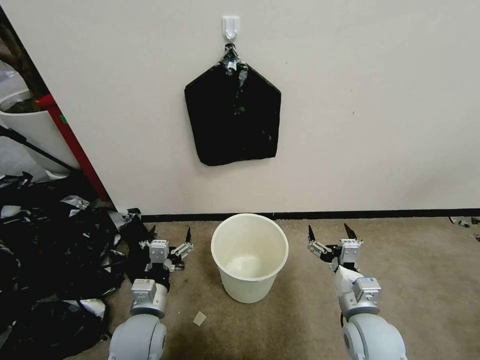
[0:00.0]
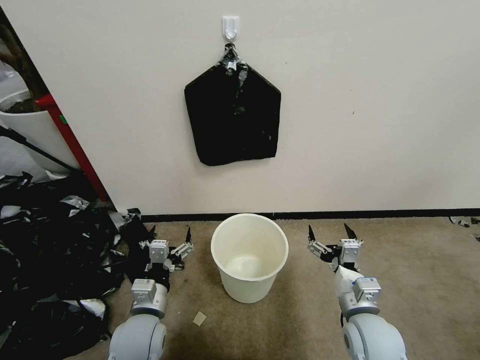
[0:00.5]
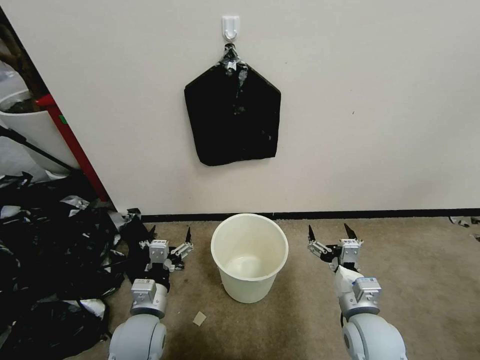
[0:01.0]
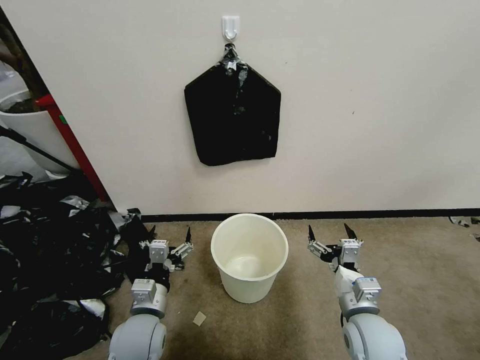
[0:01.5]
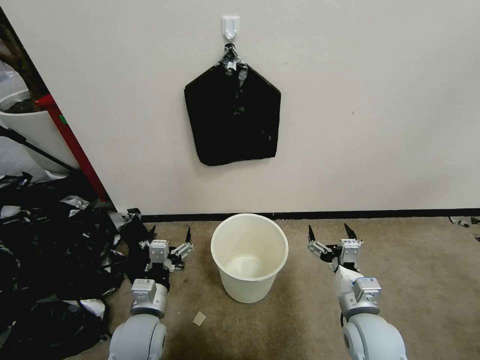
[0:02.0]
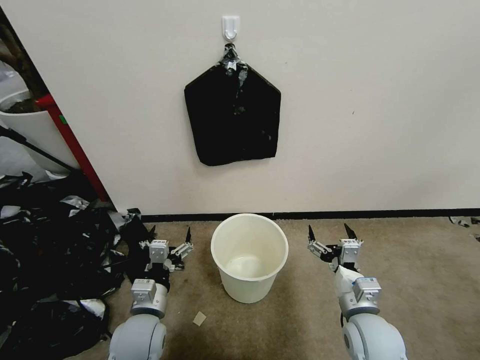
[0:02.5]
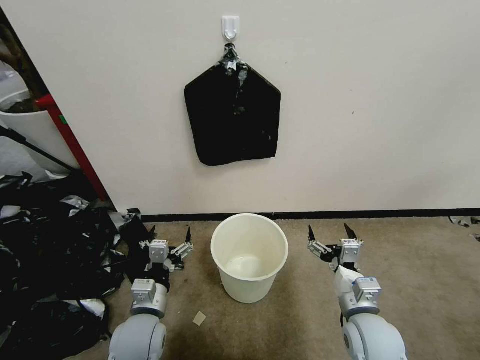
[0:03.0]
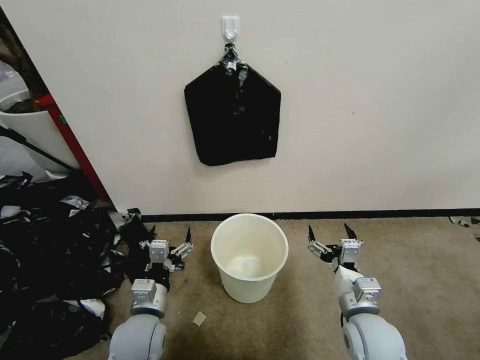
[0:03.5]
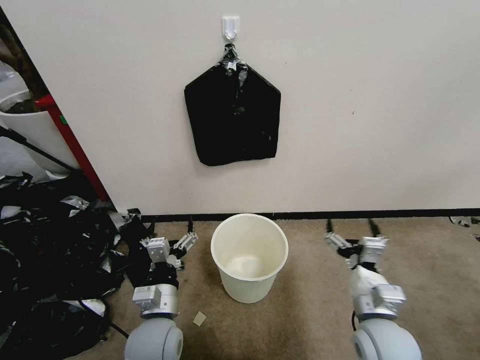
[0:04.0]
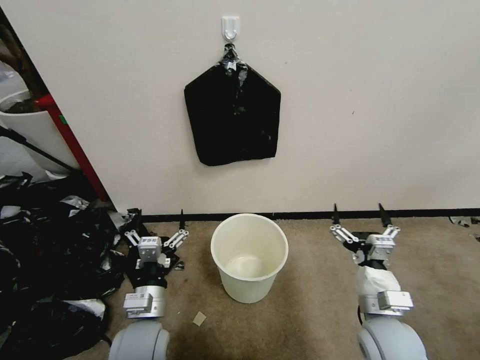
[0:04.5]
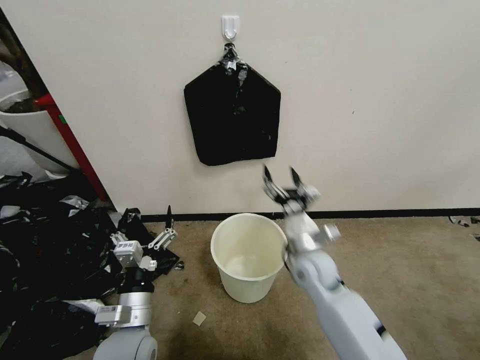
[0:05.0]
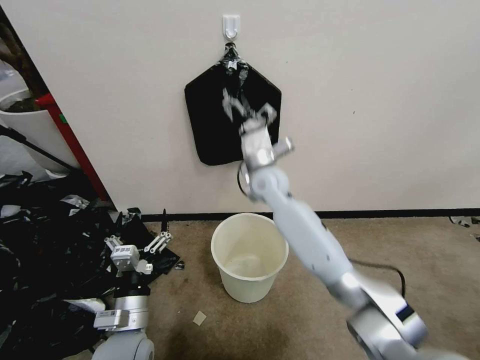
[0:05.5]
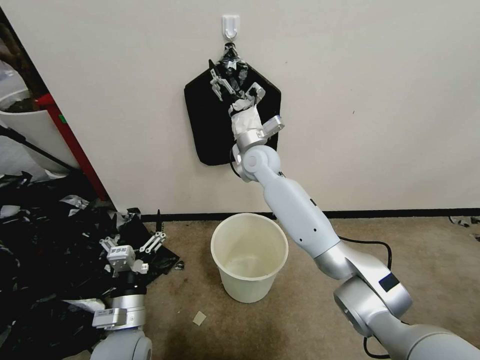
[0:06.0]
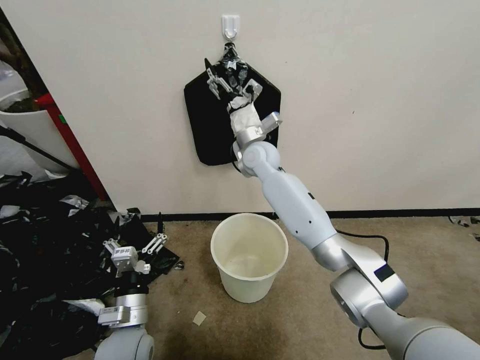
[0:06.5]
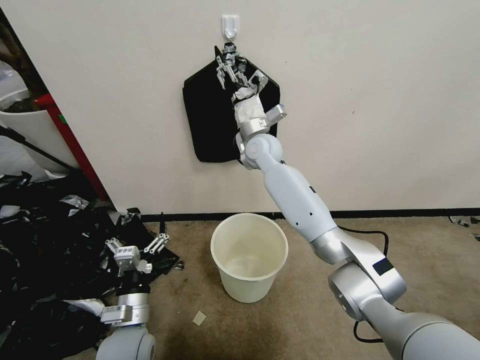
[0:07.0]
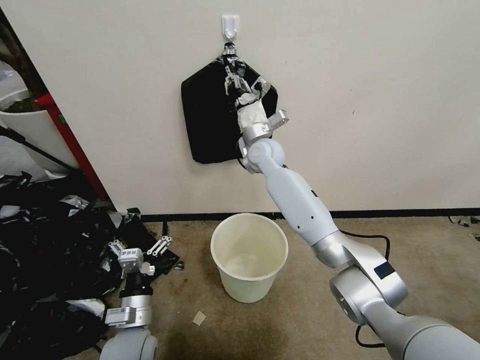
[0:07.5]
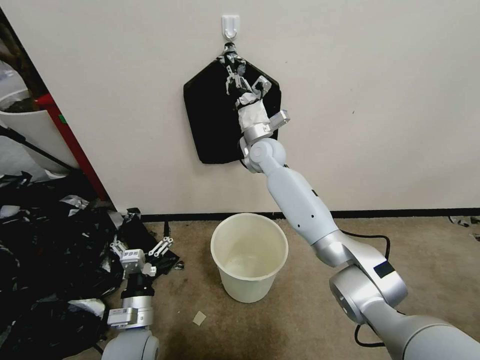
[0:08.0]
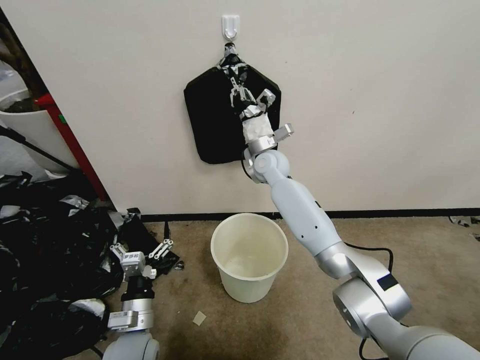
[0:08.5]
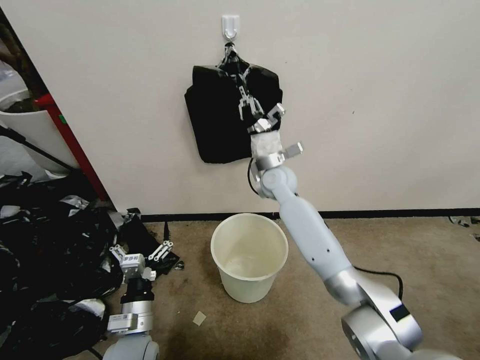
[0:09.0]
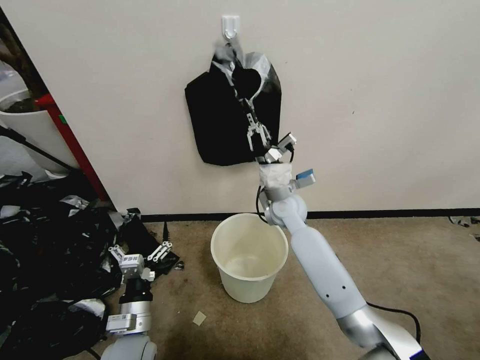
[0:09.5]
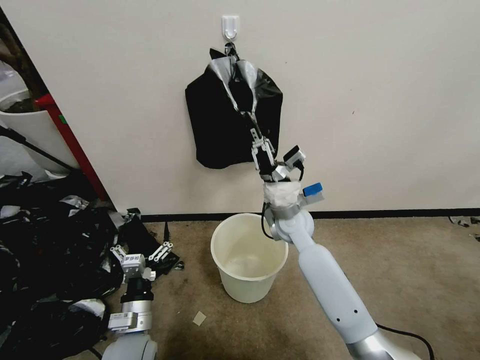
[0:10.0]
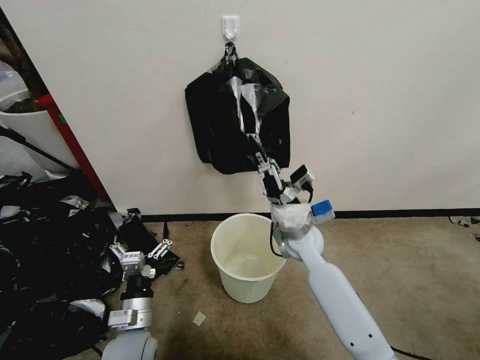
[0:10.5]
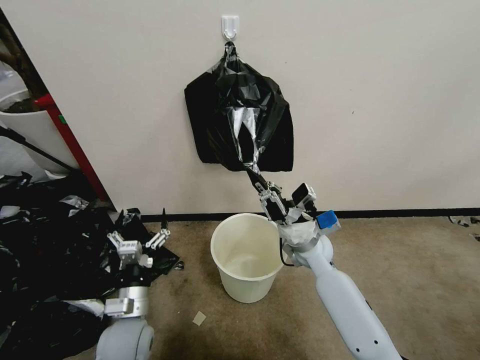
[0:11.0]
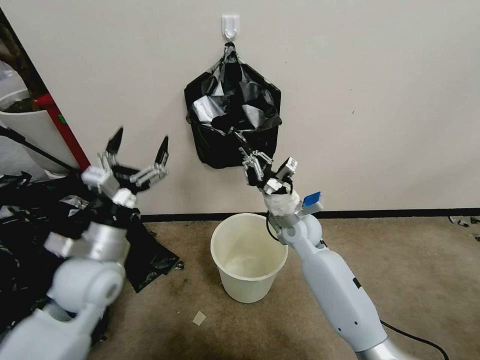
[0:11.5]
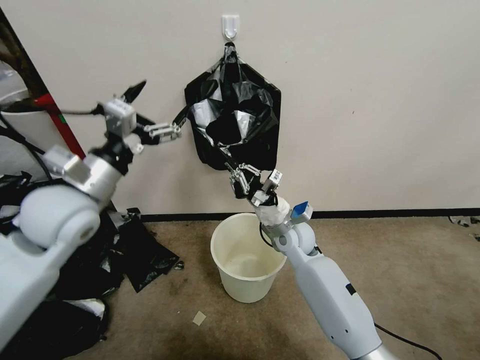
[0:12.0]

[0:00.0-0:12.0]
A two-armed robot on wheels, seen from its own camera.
Task of the whole recording: Place a trash bag onto the trash bin.
0:02.0 to 0:04.0: The grippers move only a little.
0:04.0 to 0:06.0: The left gripper moves to the left, approximately 5 cm, while the right gripper goes some 40 cm forward, to the left and upward.
0:06.0 to 0:08.0: The right gripper closes its fingers.
0:08.0 to 0:10.0: The right gripper travels backward and downward by roughly 20 cm.
0:10.0 to 0:12.0: The left gripper moves upward and forward, roughly 30 cm.

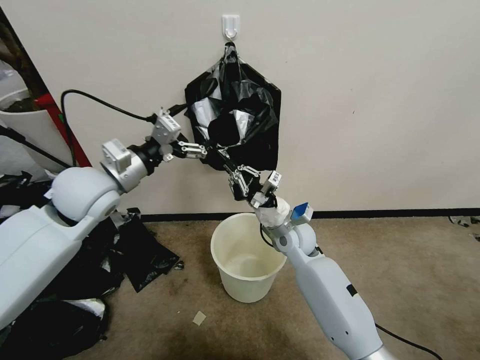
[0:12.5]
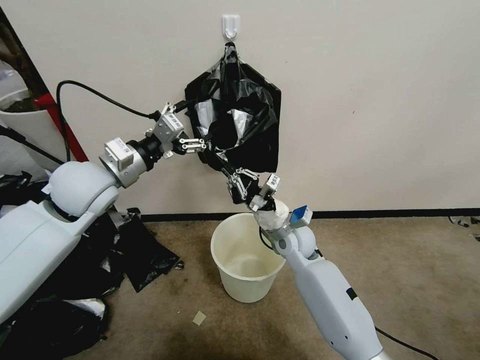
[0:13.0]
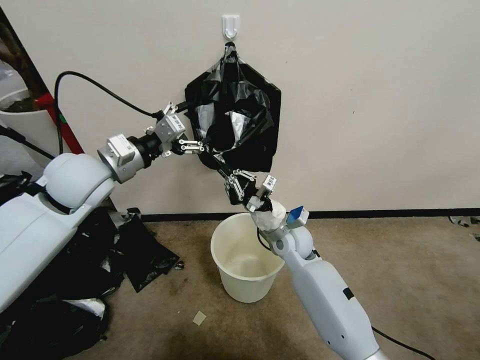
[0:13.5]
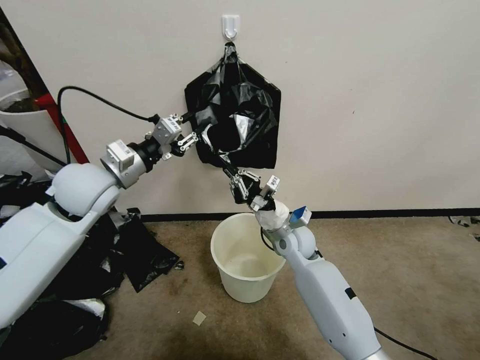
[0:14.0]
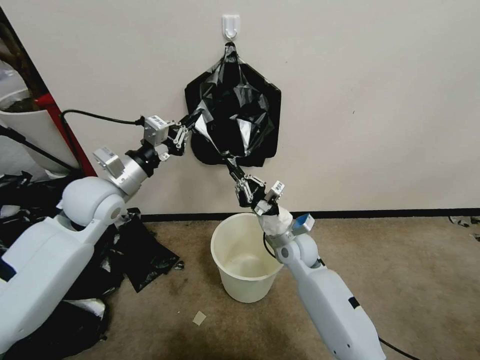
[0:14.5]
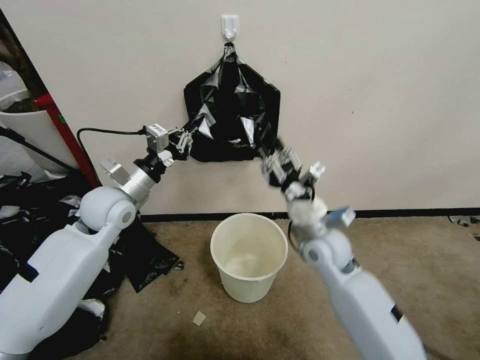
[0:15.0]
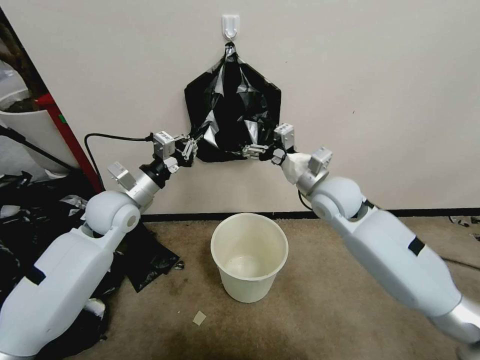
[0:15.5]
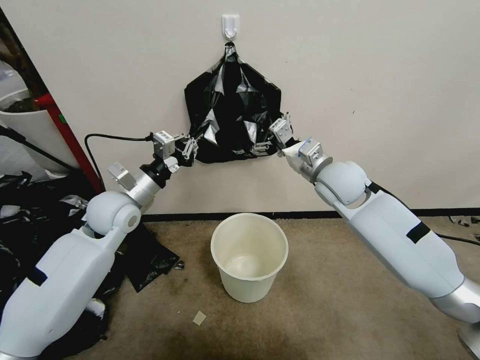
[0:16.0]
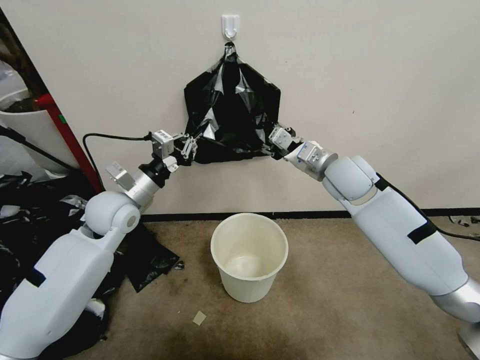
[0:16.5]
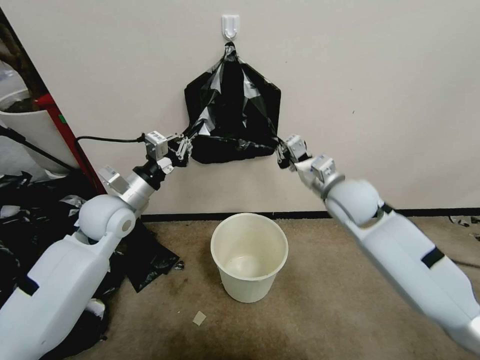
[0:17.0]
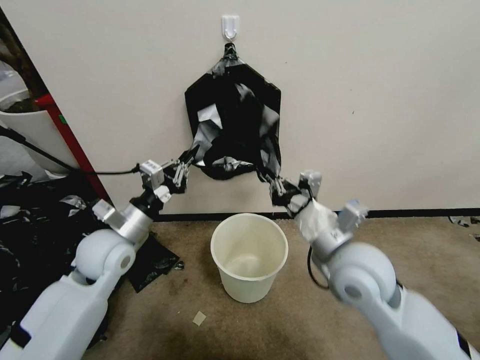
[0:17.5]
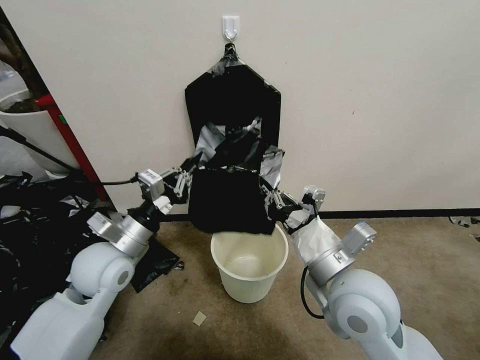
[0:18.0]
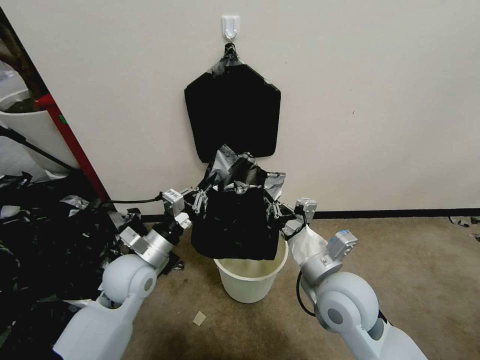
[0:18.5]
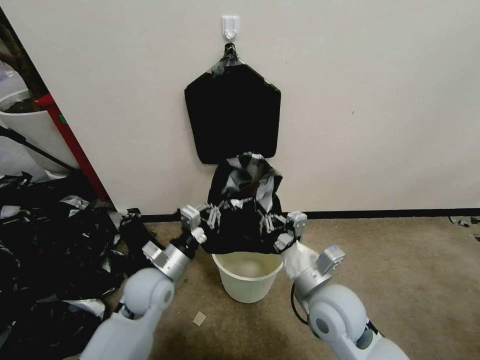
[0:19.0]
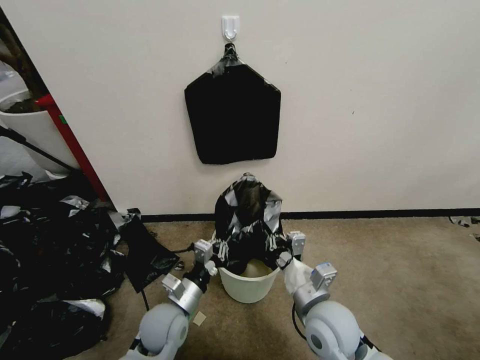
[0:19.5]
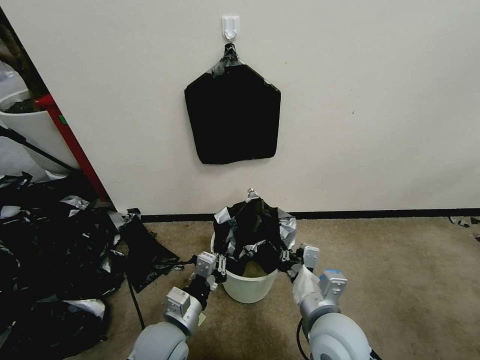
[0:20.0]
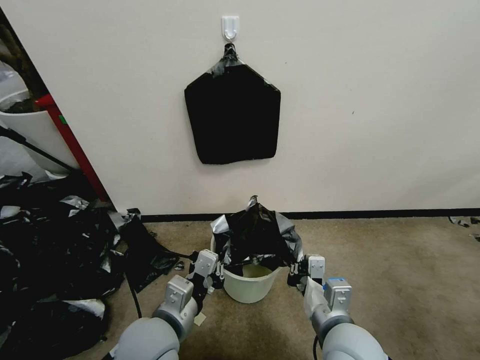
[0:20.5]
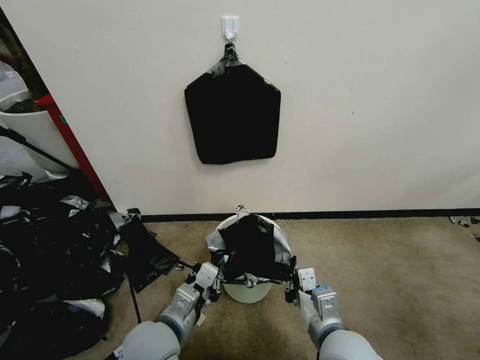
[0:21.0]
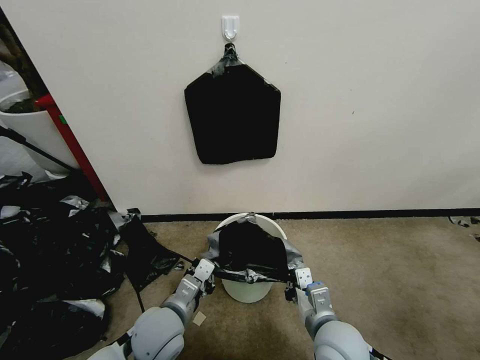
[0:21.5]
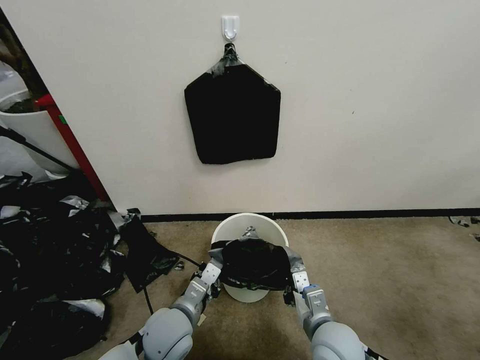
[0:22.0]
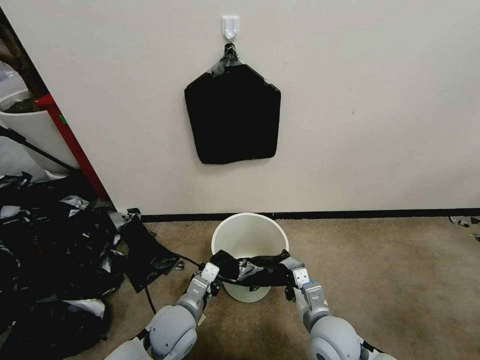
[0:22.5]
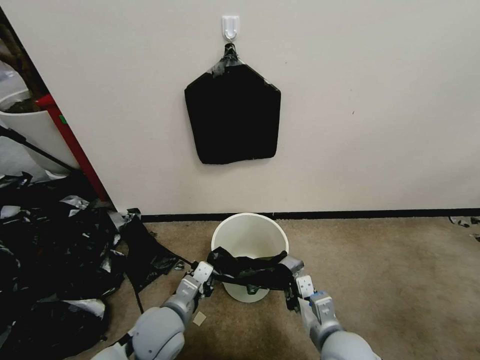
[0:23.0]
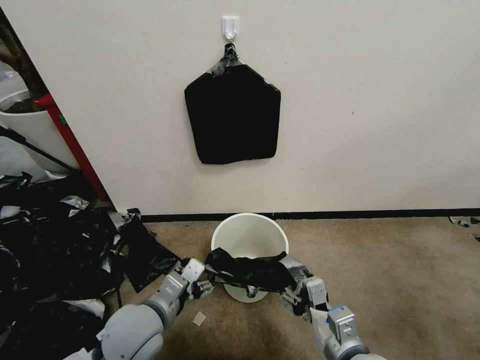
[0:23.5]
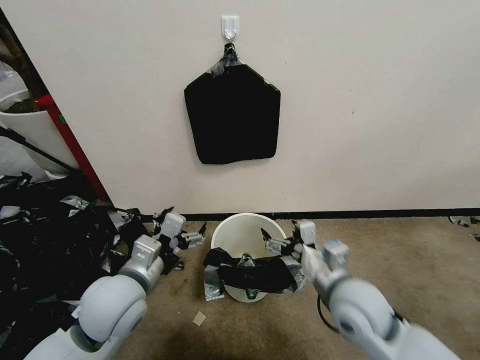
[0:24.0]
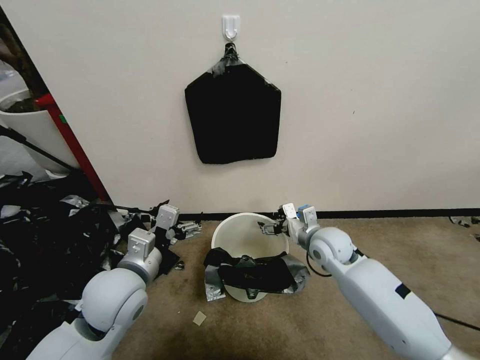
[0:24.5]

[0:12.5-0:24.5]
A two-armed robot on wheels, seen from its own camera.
Task of the whole recording: Place a trash bag onto the trash bin.
0:12.5 to 0:14.5: The left gripper closes its fingers.
0:14.5 to 0:16.5: The right gripper is displaced upward and to the right by some 20 cm, and opens.
0:16.5 to 0:18.5: The right gripper is displaced backward and downward by roughly 25 cm, and closes up. The left gripper goes roughly 15 cm backward and downward.
0:18.5 to 0:20.5: The left gripper travels backward and to the right by about 15 cm, and goes downward and returns, some 10 cm each way. Meanwhile the right gripper travels backward and downward by some 10 cm.
0:20.5 to 0:22.5: The right gripper travels downward by some 10 cm. The left gripper heads downward and forward, covering some 15 cm.
0:22.5 to 0:24.5: The left gripper goes approximately 15 cm upward and to the left, and opens its fingers; the right gripper heads forward, covering some 20 cm, and opens up.

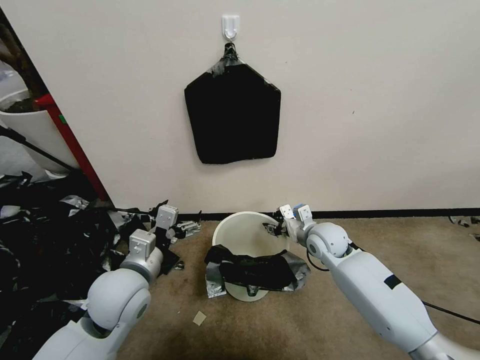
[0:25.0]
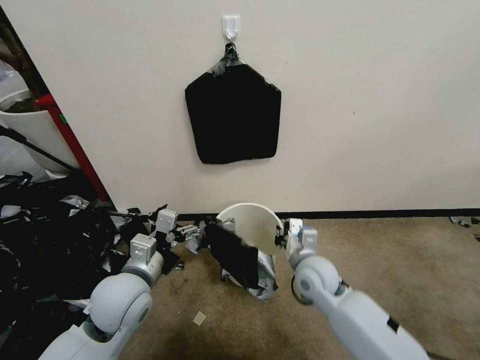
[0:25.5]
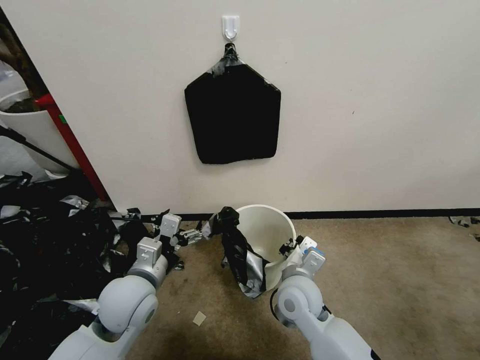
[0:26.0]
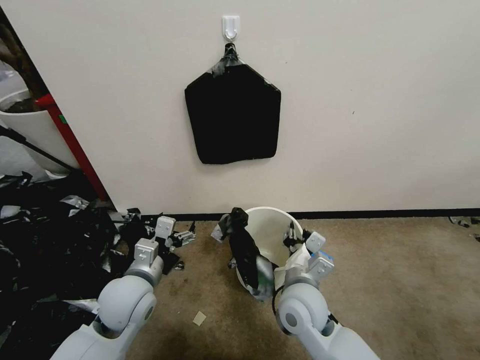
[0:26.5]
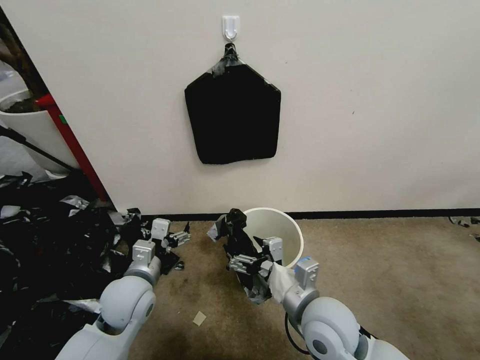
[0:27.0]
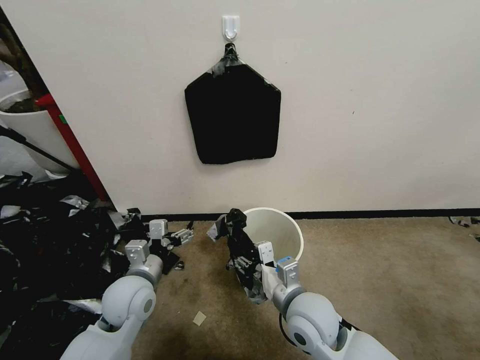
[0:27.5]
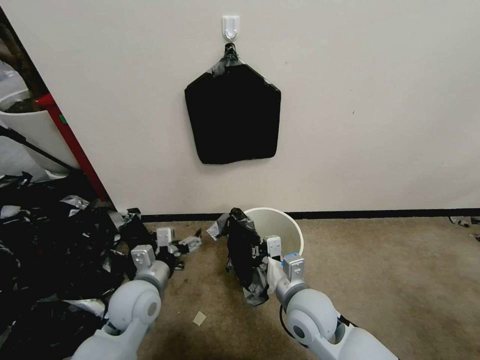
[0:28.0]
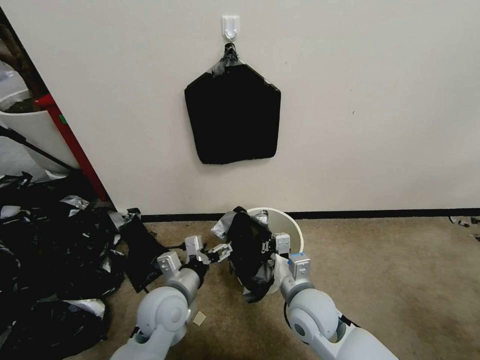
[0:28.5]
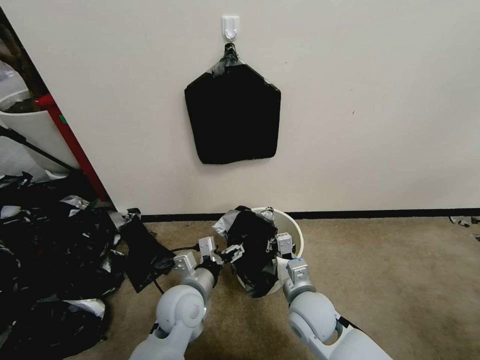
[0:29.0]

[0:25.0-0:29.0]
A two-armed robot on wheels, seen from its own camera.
Task of the whole recording: Place a trash bag onto the trash bin.
0:25.0 to 0:27.0: The left gripper shifts roughly 5 cm downward, while the right gripper heads backward, covering roughly 20 cm, and opens up.
0:27.0 to 0:29.0: The right gripper goes roughly 10 cm downward, and closes up. Meanwhile the left gripper shifts about 10 cm to the right.
